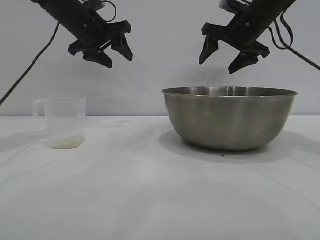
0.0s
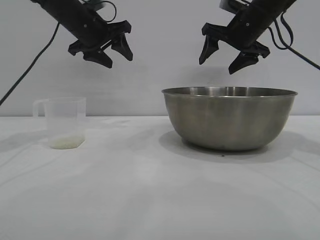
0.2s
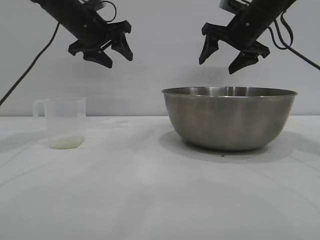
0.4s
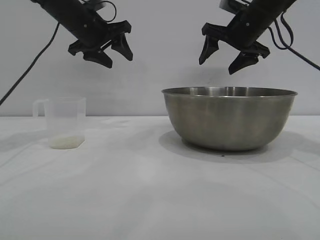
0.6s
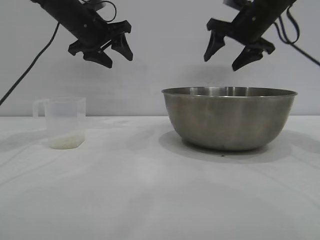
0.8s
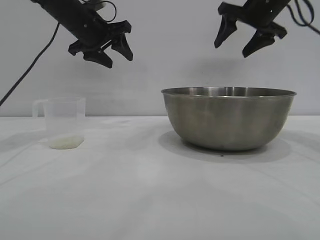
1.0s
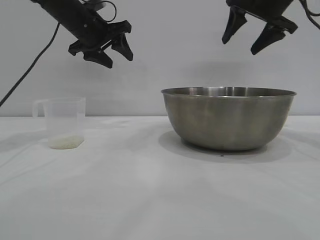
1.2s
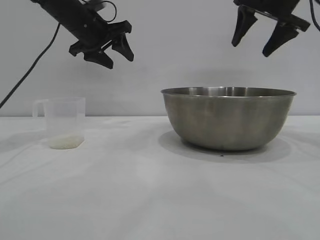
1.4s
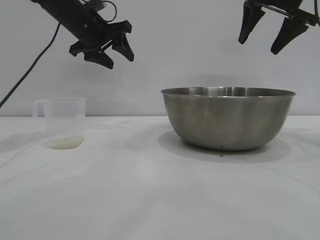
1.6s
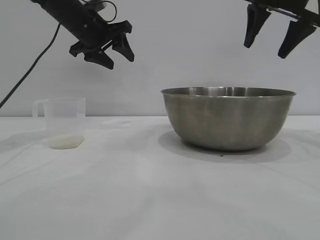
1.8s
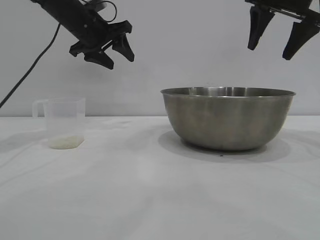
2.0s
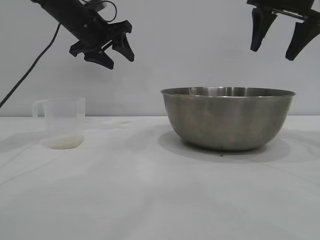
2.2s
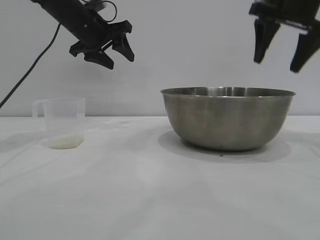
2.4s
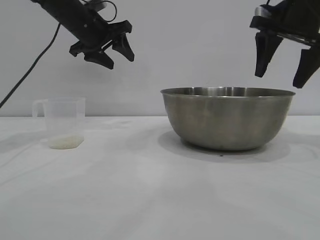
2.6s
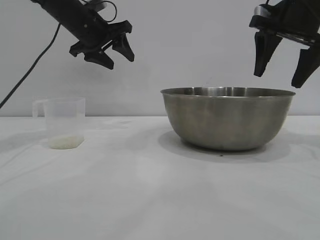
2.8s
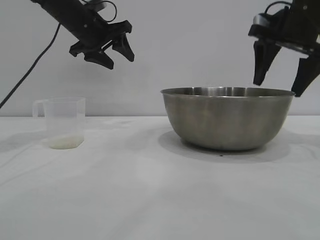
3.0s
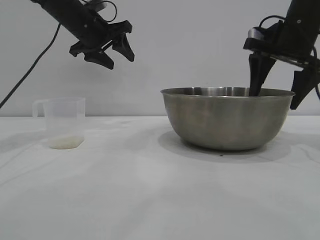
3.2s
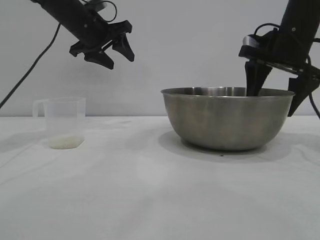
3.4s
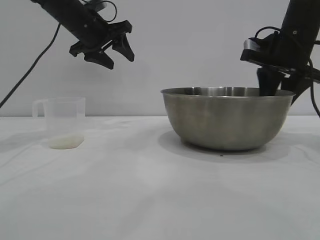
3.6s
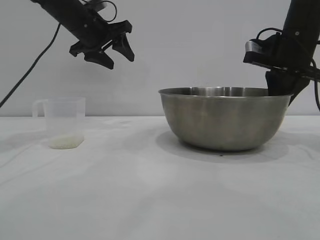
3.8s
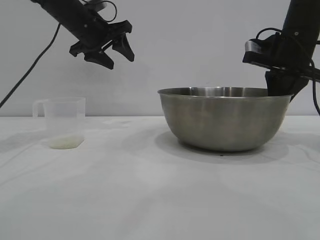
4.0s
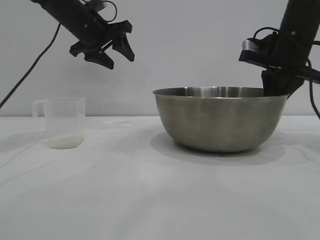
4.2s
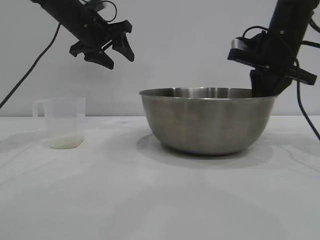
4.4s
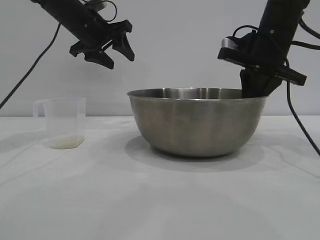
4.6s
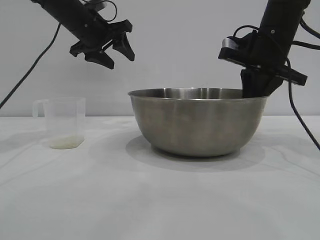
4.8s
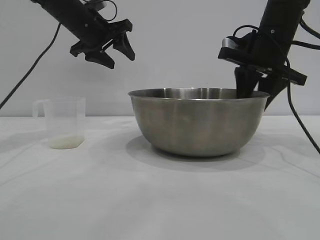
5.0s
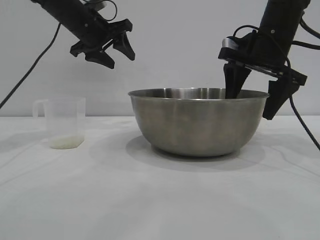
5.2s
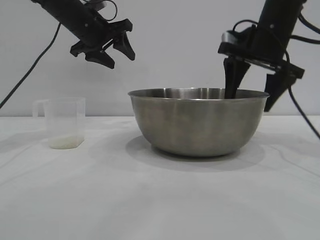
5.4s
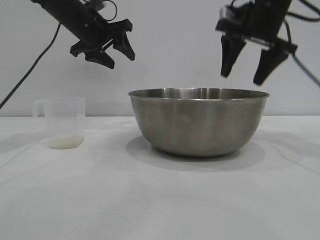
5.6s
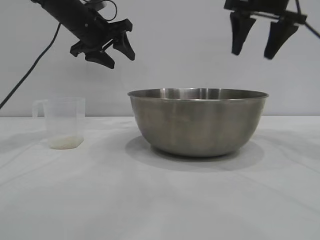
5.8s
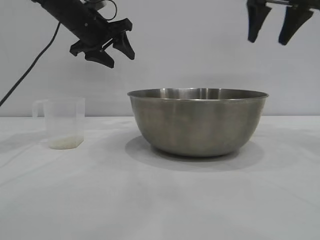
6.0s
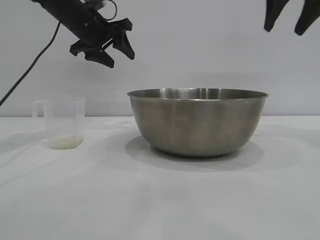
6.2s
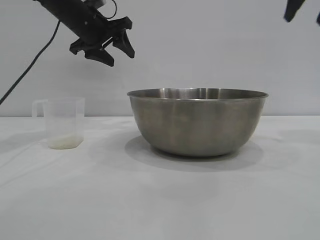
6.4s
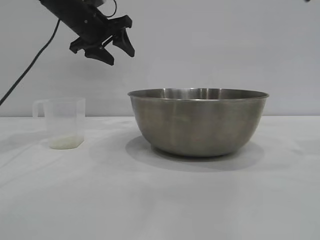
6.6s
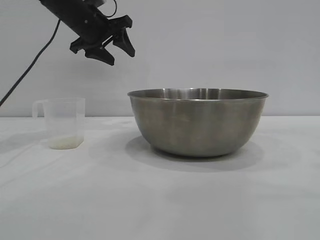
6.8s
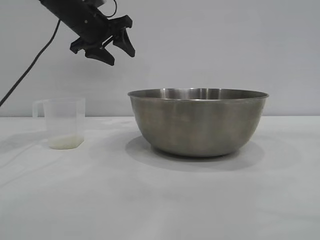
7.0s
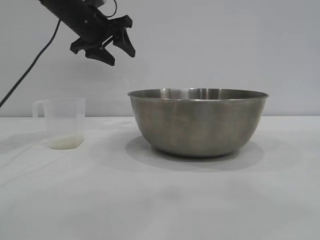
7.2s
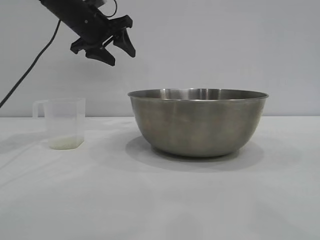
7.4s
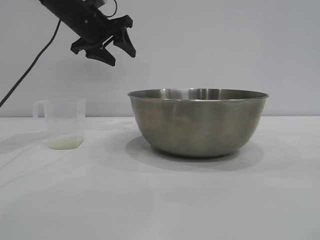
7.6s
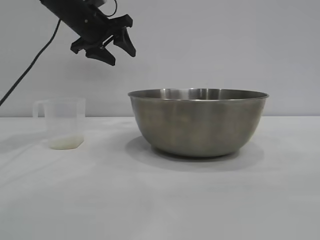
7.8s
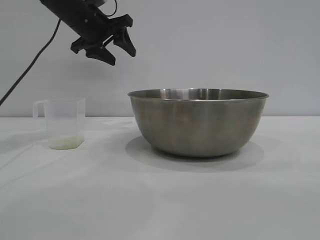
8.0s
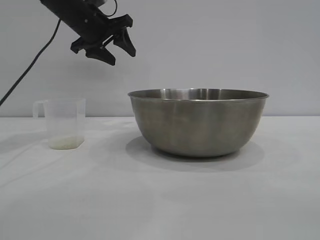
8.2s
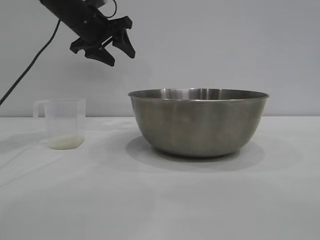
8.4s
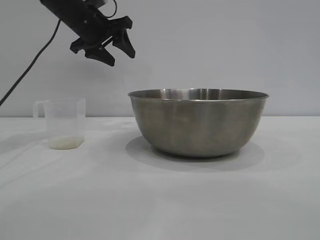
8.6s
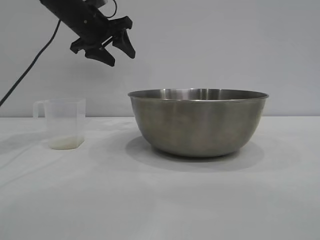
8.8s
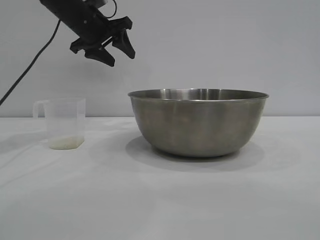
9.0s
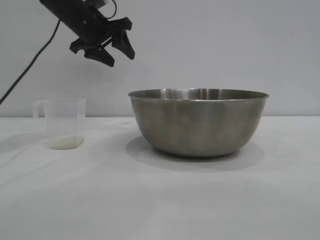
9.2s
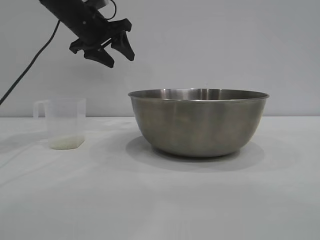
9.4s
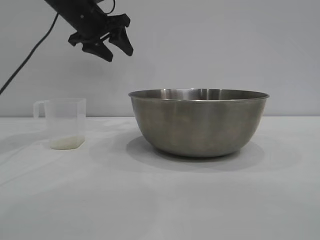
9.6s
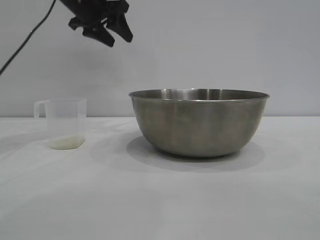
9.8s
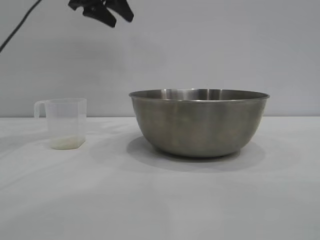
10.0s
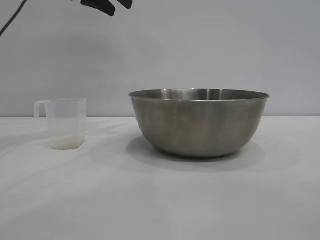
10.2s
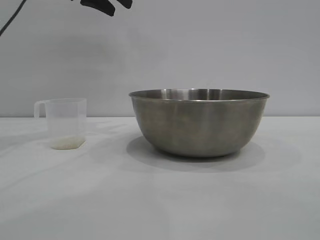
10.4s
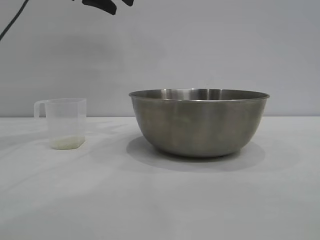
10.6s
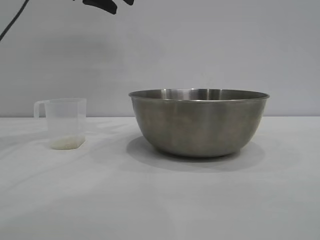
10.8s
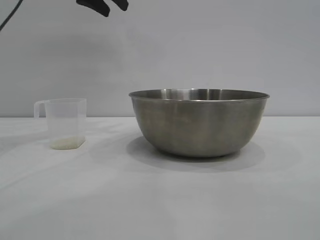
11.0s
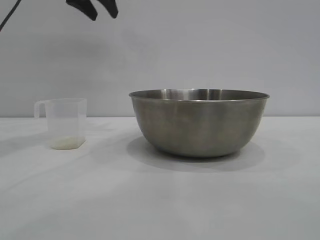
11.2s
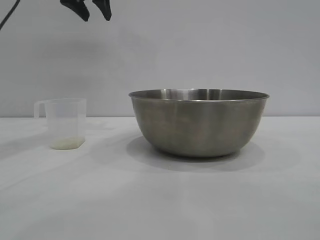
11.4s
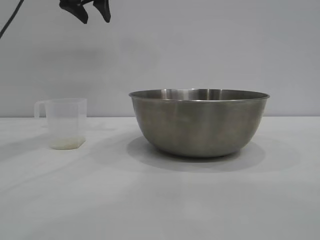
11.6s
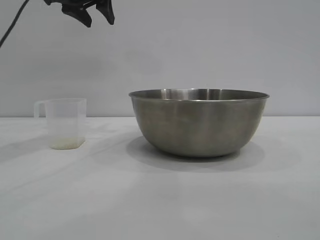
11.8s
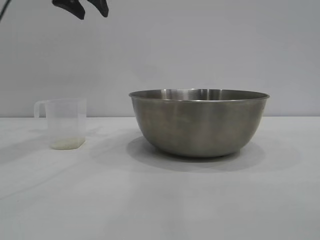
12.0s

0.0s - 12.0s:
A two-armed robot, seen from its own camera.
Task of the whole recording: the right gripper grasp the rice container and place it in the center of the table, the left gripper grasp the rice scoop and pour the rice into the rice container.
Step, 0.0s - 5.8s: Move the bowl to the center of view with the right gripper.

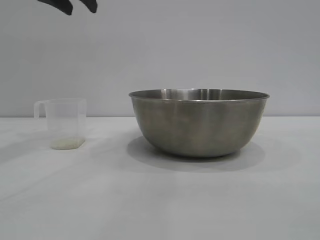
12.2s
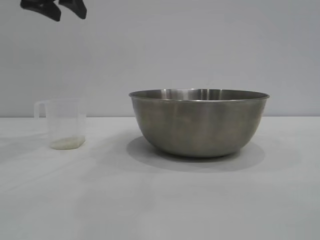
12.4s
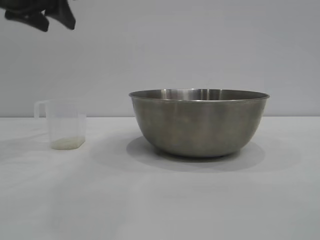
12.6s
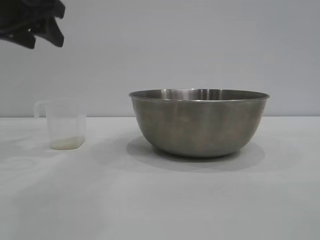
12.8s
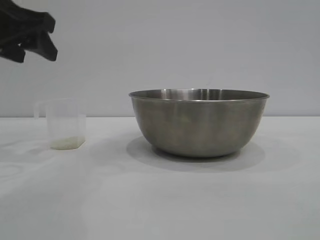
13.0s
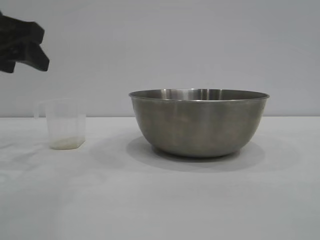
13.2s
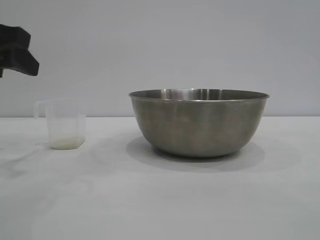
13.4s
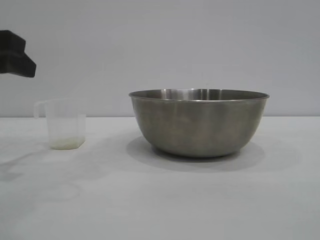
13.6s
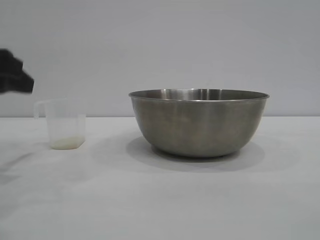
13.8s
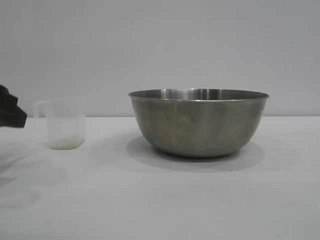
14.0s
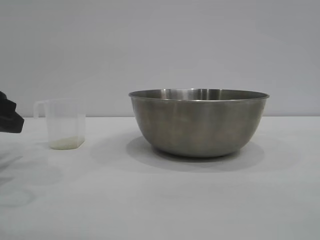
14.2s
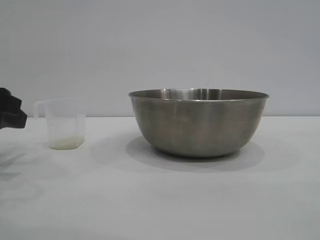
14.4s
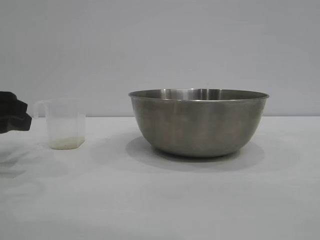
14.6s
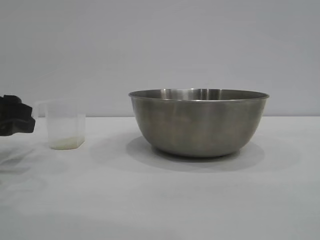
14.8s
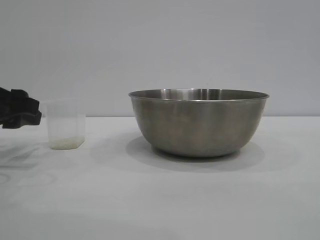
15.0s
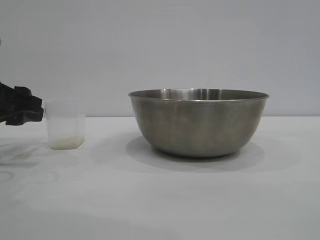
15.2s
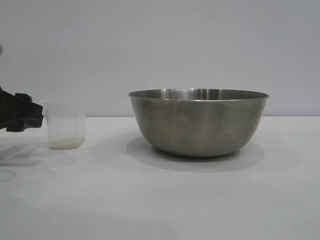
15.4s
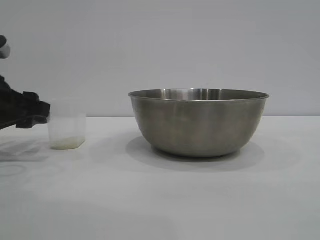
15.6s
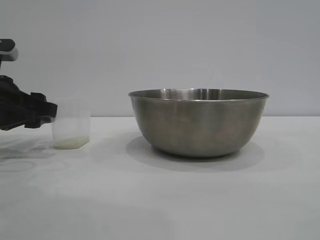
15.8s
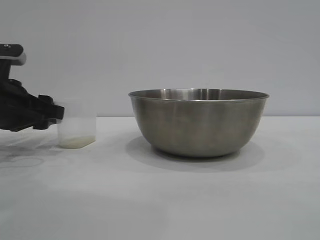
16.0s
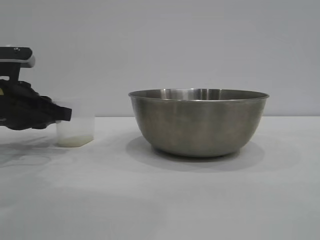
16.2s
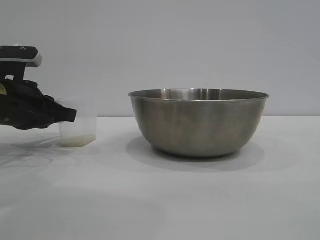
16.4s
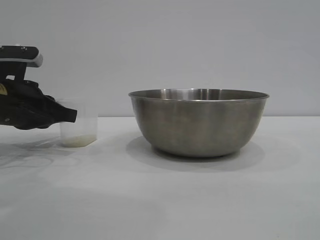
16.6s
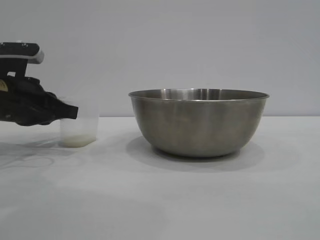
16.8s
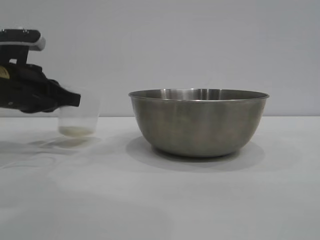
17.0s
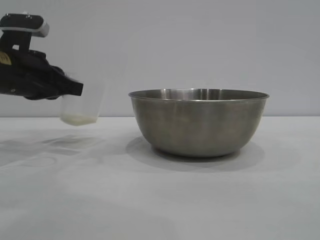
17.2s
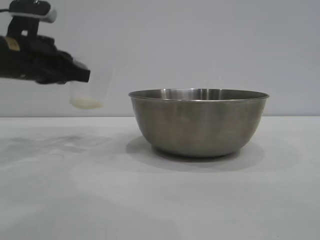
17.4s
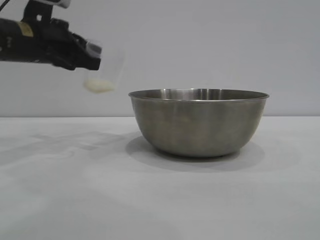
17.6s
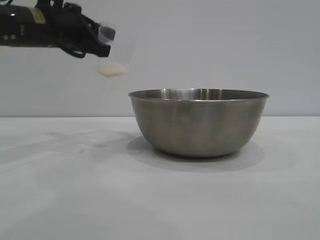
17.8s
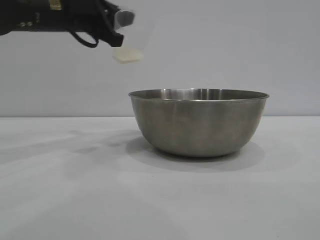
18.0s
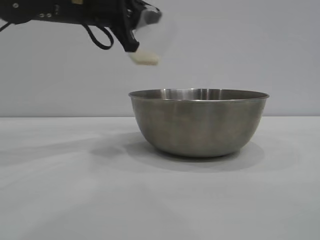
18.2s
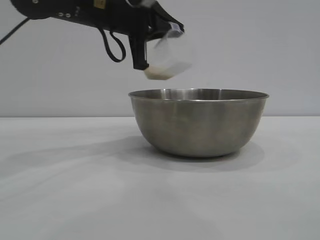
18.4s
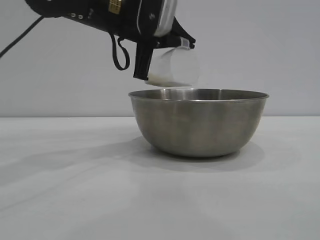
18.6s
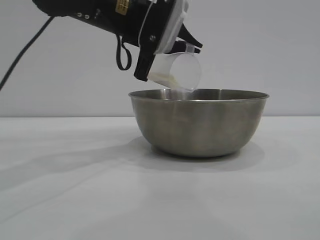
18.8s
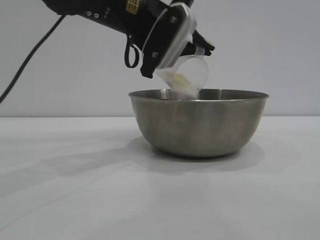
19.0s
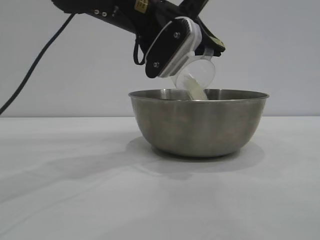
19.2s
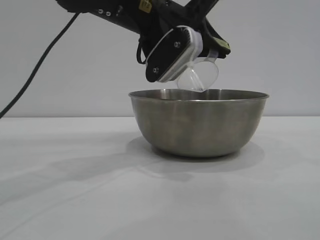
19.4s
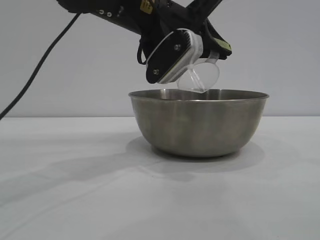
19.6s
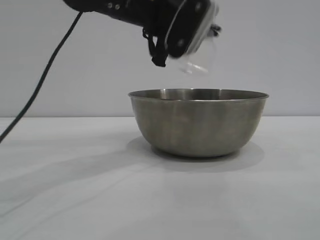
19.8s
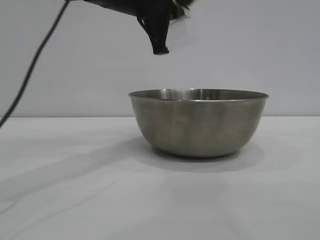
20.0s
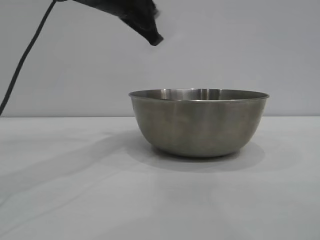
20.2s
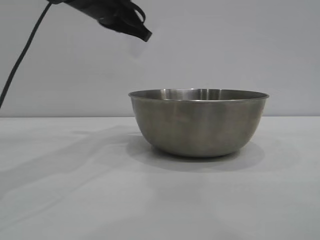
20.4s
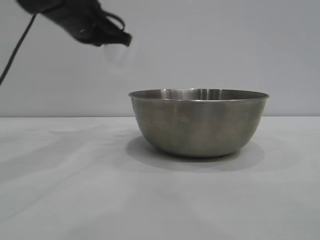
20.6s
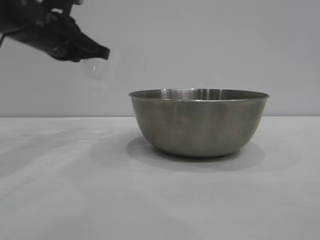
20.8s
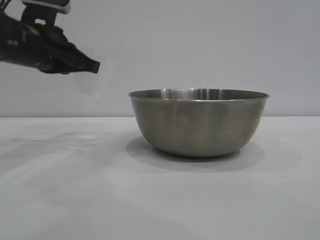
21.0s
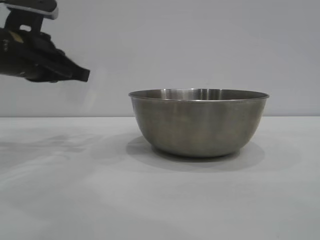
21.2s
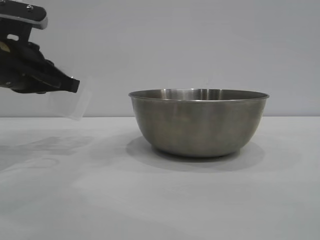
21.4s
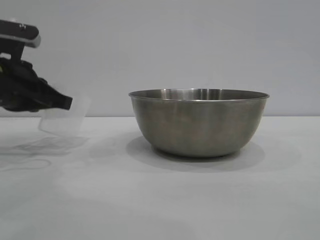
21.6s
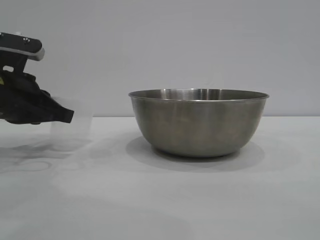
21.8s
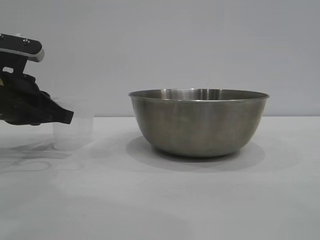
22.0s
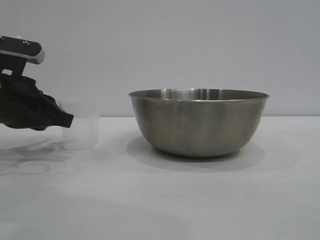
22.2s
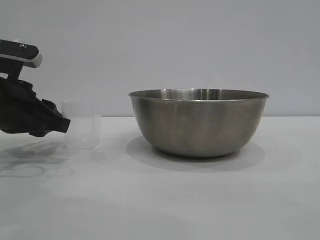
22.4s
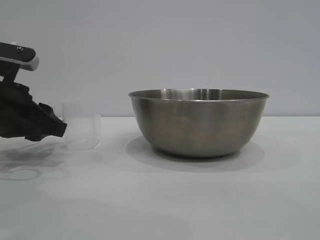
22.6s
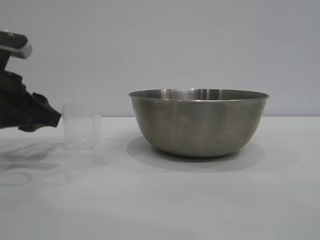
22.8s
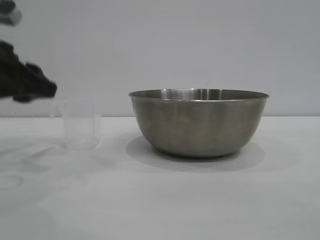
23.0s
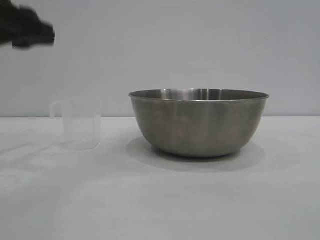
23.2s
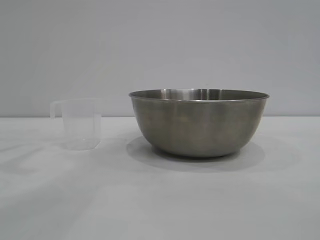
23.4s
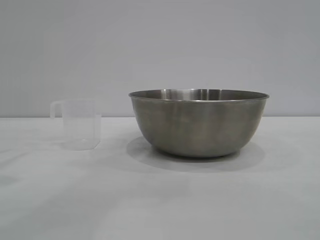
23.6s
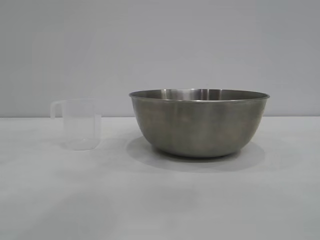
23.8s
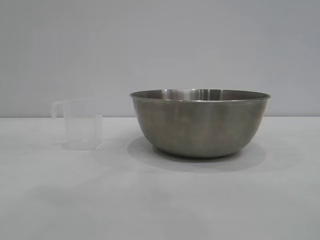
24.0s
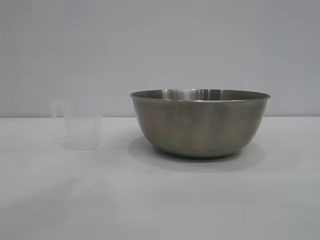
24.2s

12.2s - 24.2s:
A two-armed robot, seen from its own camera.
Task of the whole recording: the right gripper grasp the rice container and place it in the center of the table, the left gripper grasp the rice scoop and pour the rice into the rice container.
Step, 12.2s - 17.2s: Pick up the cup with rice in it with the left gripper.
Step, 17.4s - 20.0s: Pour the rice from the cup into the bowl with the left gripper.
Step, 20.2s - 22.6s: Place the cup on the table with the left gripper.
